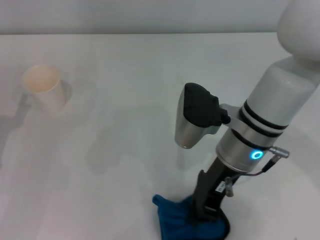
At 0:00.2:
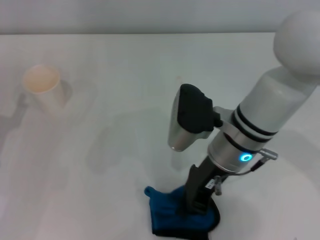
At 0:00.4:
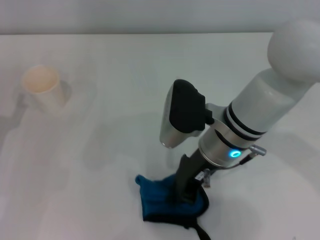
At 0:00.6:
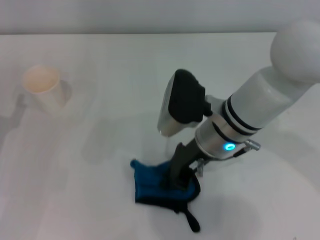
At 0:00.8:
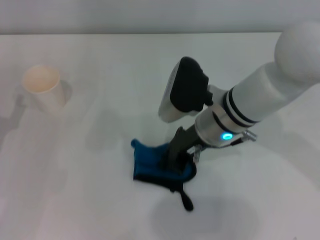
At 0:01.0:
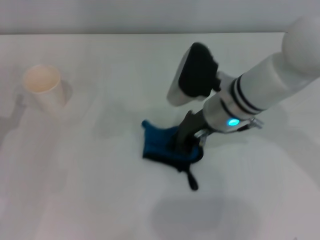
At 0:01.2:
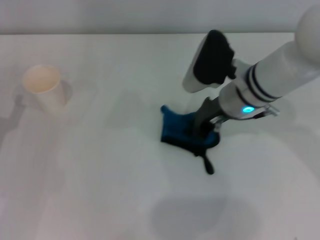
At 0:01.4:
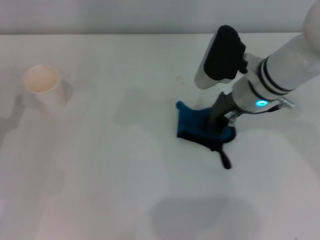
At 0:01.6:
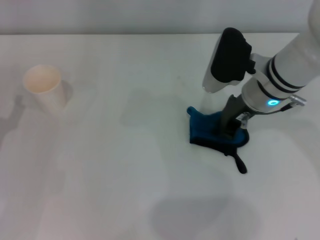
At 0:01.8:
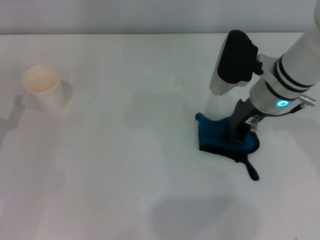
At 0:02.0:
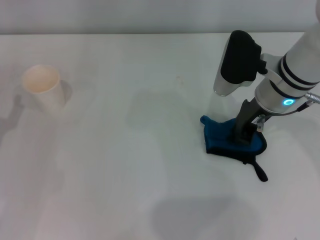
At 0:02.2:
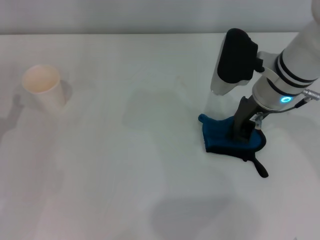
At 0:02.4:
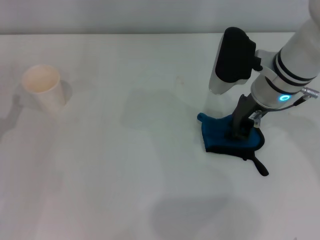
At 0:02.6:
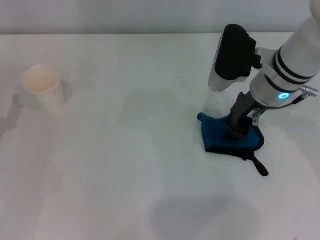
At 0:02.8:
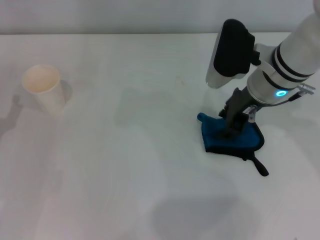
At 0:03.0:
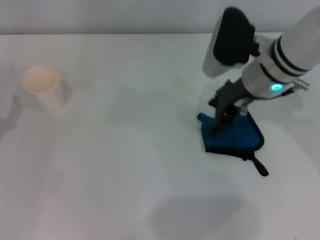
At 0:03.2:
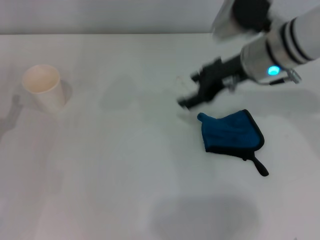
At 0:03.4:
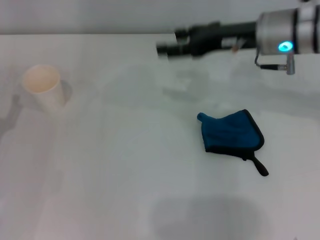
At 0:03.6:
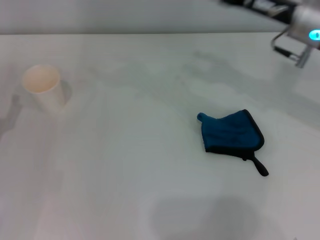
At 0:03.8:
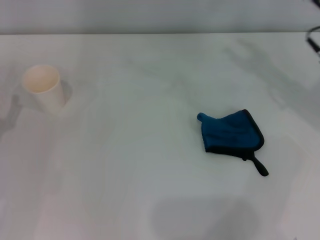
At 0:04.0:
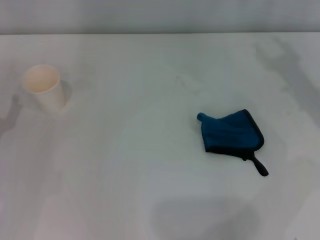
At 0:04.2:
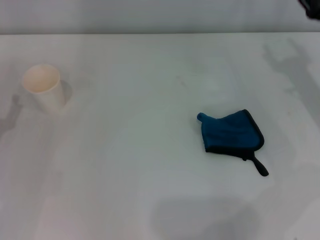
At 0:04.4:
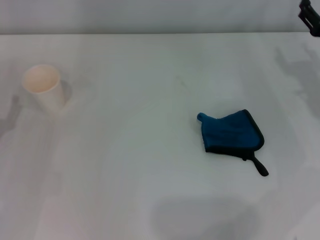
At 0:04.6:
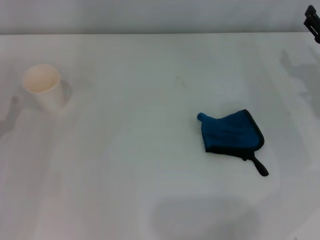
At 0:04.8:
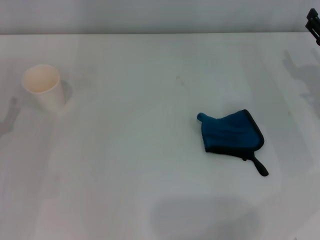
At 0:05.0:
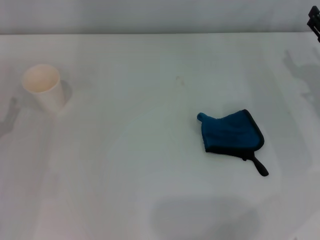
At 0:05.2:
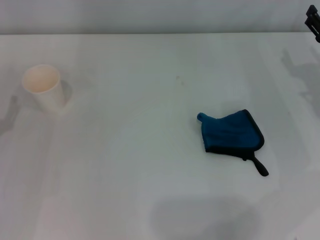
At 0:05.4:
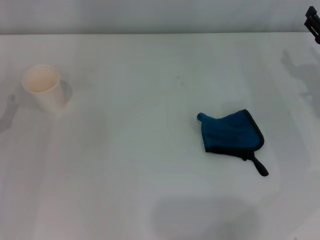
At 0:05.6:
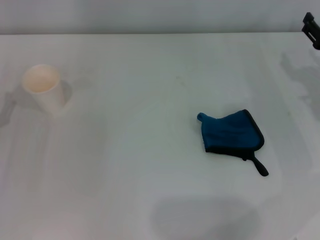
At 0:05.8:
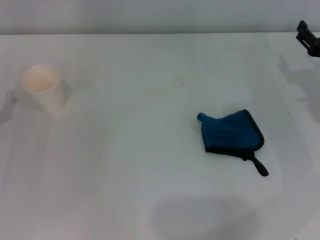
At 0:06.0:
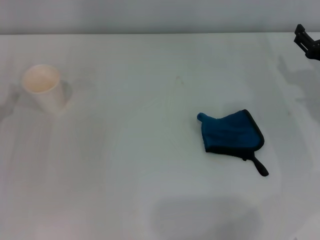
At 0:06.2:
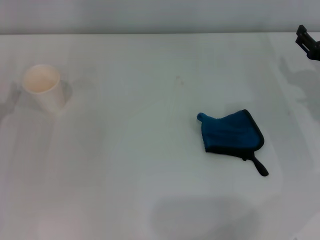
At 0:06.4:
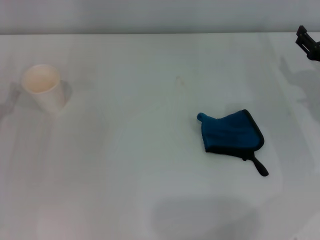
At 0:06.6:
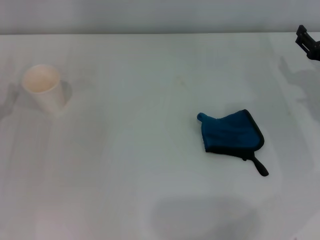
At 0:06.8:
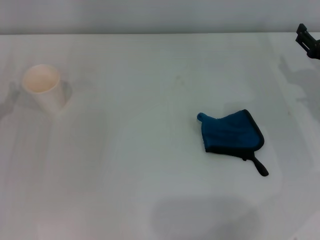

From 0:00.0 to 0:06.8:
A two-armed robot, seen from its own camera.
Step, from 0:02.2 to 0:02.6: Place the rag on the table with the right gripper.
From 0:00.0 to 0:01.4: The right gripper goes about 10 cm forward.
From 0:01.4 to 0:02.8: The grippers make only small movements.
From 0:02.8 to 0:04.0: The right gripper moves to the right, about 15 cm, and opens its fingers.
From 0:05.4 to 0:06.8: There are only small adjustments of the grippers.

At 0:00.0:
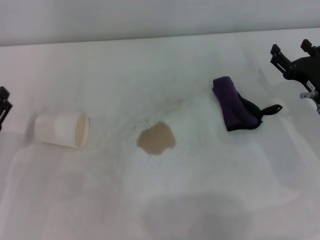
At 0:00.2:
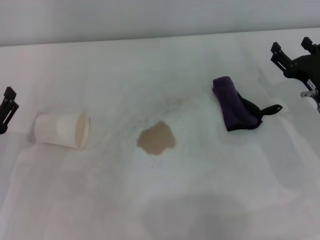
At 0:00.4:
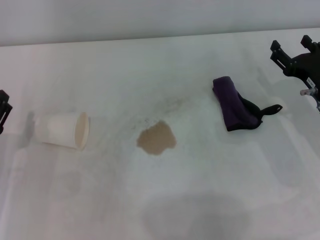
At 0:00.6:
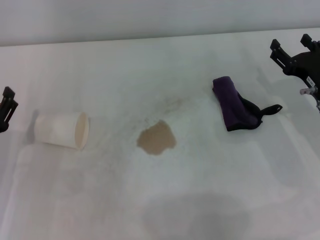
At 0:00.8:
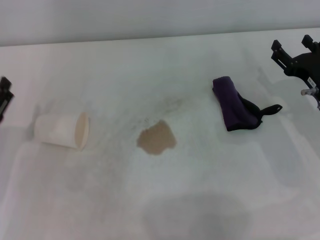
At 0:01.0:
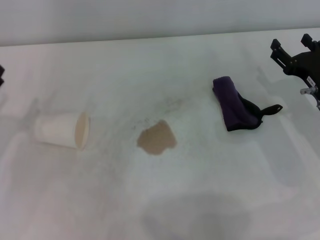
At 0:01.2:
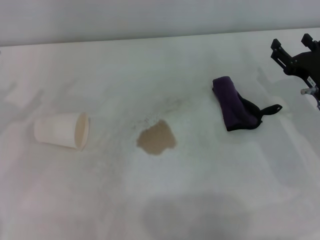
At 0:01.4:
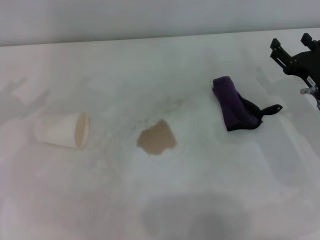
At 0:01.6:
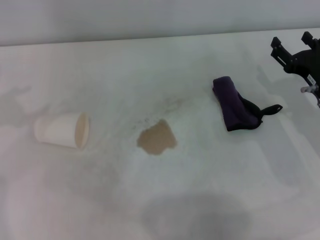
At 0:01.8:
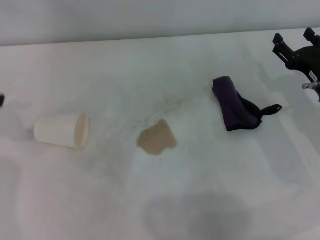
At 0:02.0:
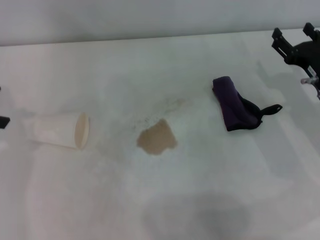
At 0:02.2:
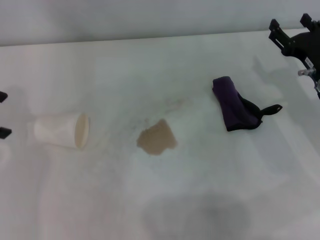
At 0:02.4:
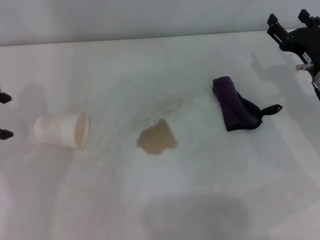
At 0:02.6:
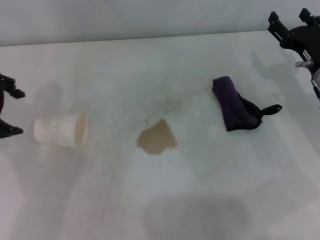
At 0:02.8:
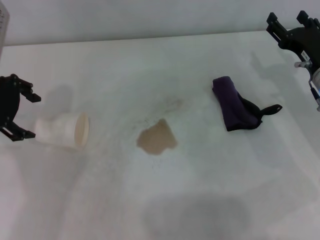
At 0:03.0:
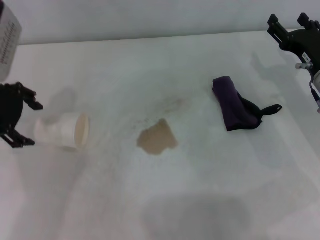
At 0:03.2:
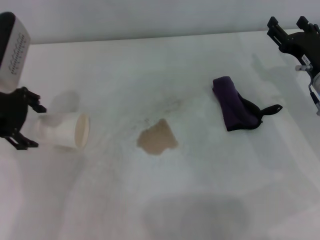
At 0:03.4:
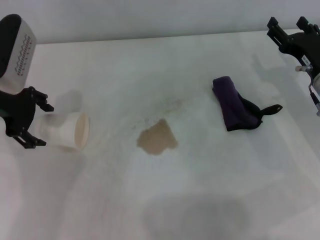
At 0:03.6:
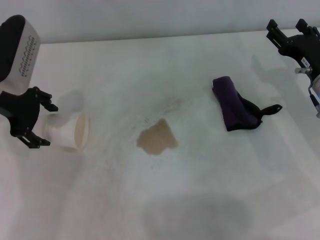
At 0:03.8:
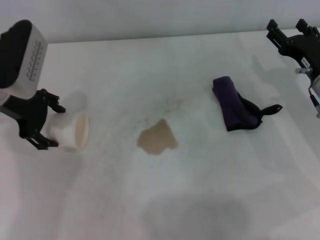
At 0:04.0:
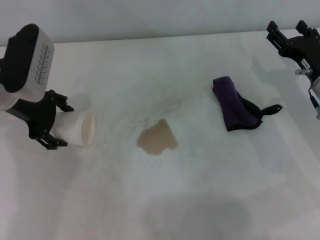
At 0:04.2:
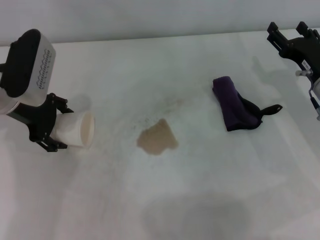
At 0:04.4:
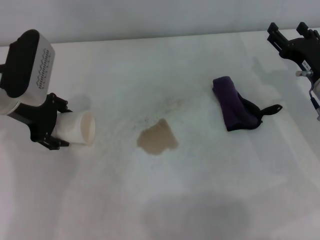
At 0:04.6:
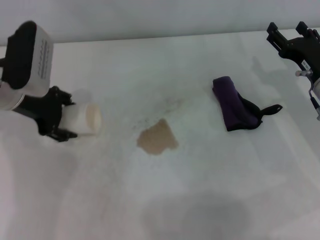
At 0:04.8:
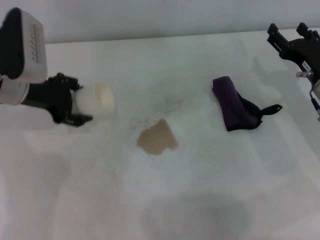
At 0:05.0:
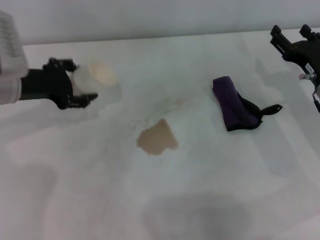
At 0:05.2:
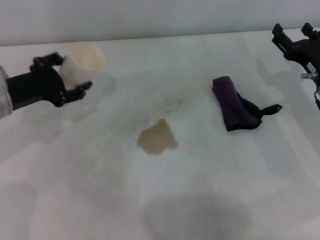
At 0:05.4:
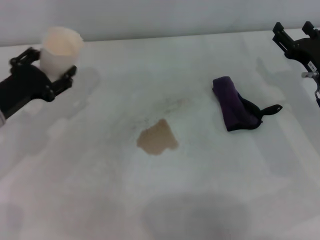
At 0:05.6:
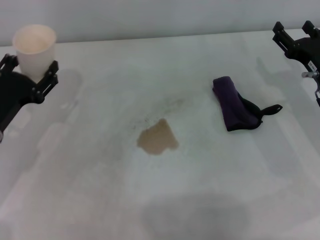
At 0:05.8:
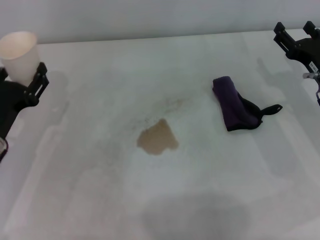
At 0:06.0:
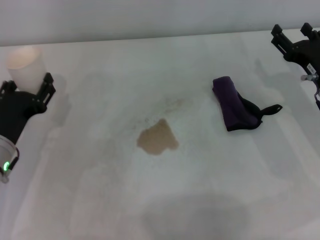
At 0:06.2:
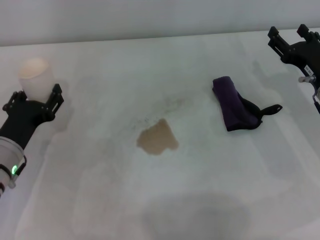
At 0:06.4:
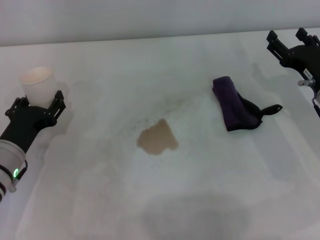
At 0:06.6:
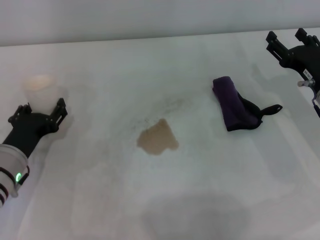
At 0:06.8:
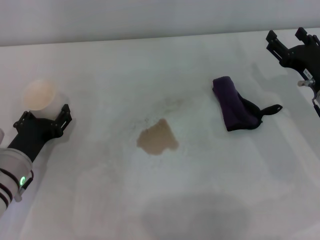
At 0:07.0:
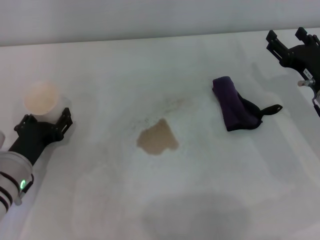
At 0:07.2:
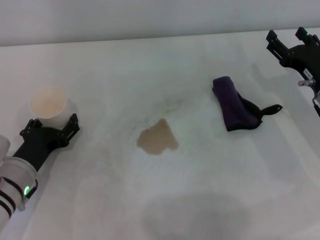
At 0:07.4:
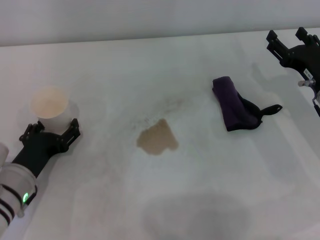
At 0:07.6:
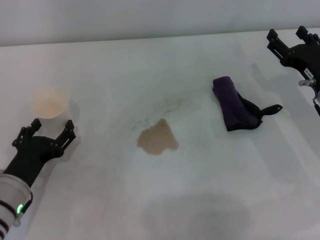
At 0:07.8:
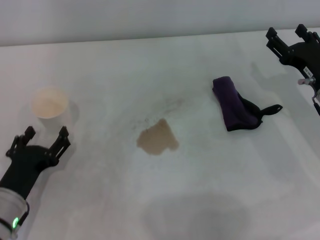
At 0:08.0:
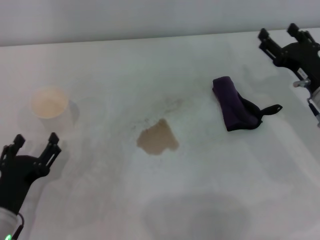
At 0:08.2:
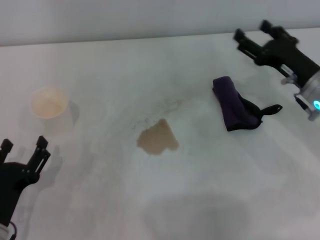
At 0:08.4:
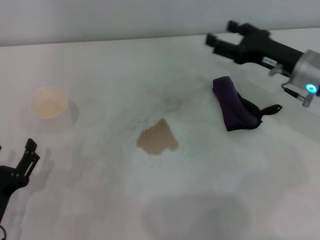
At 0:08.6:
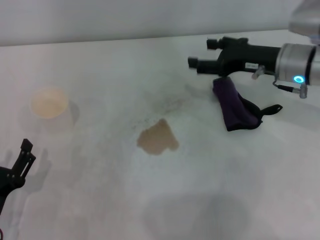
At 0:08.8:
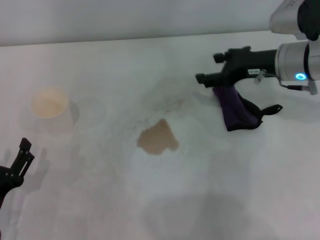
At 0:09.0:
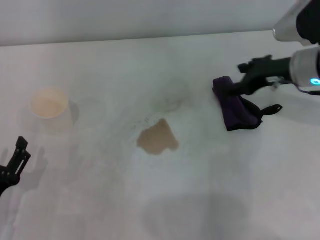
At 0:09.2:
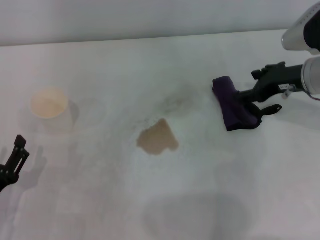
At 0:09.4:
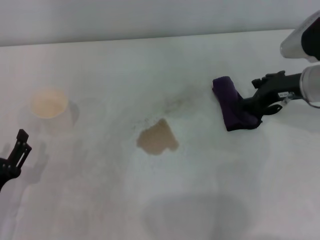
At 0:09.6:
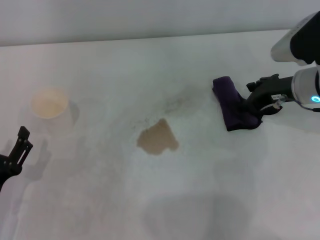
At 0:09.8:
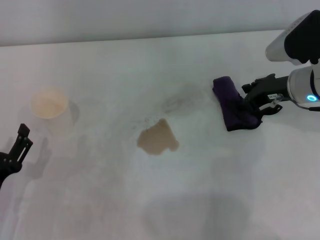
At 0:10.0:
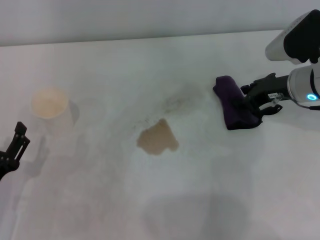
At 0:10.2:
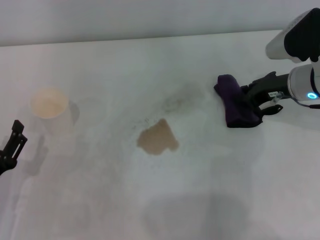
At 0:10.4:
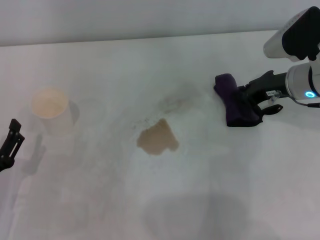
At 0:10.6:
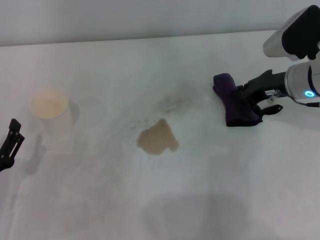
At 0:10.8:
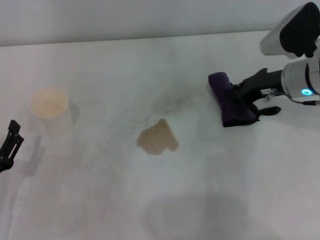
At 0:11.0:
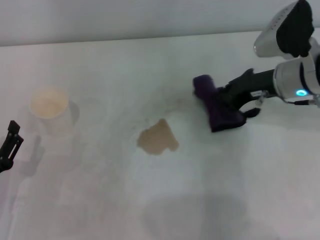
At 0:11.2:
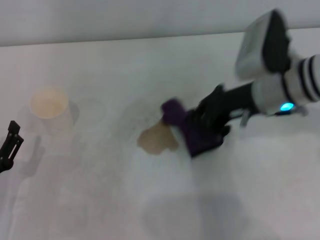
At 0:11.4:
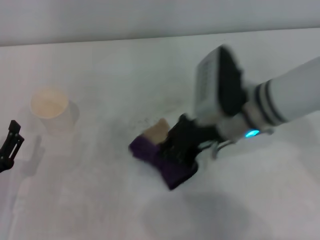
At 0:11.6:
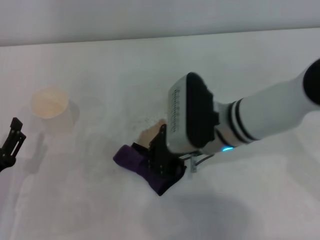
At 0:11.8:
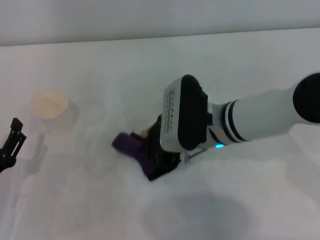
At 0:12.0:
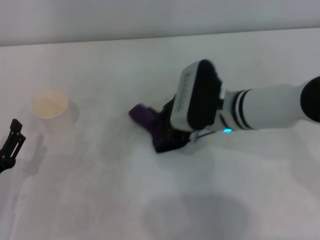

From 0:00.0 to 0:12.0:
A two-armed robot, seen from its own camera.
Step, from 0:00.0 to 0:04.2: Grasp the paper cup with the left gripper.
Step, from 0:04.6 to 0:07.4: Stand the paper cup upright with the left gripper.
Step, from 0:07.8 to 0:10.6: Grasp the rag with the right gripper.
From 0:01.6 to 0:03.0: The left gripper heads to the right and forward, covering some 15 cm.
From 0:03.0 to 0:04.4: The left gripper travels downward by approximately 5 cm, and closes its fingers.
From 0:04.4 to 0:06.0: The left gripper is displaced backward and downward by roughly 15 cm, and closes up.
From 0:06.0 to 0:07.6: The left gripper moves backward, about 5 cm, and opens its fingers.
From 0:07.6 to 0:09.0: The right gripper goes roughly 10 cm upward and forward, while the left gripper moves backward, some 5 cm.
From 0:09.0 to 0:10.4: The right gripper closes.
From 0:10.4 to 0:12.0: The right gripper shifts approximately 15 cm to the left, and closes up.

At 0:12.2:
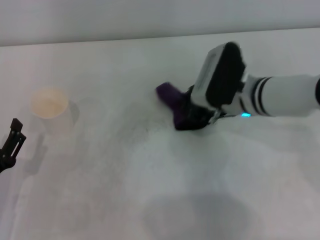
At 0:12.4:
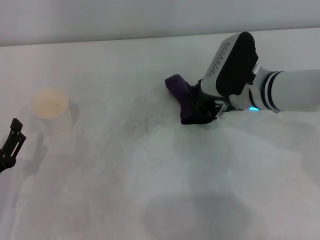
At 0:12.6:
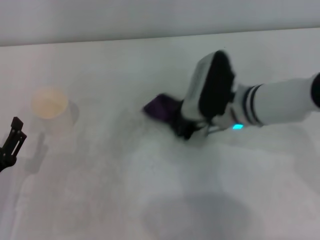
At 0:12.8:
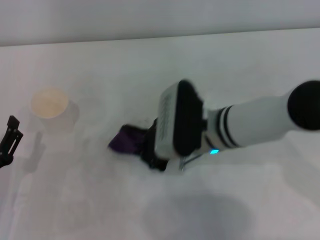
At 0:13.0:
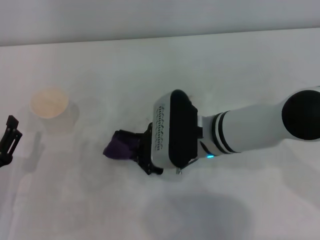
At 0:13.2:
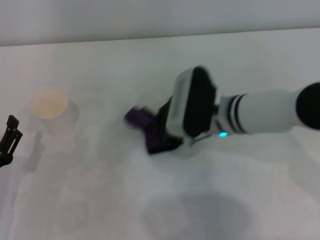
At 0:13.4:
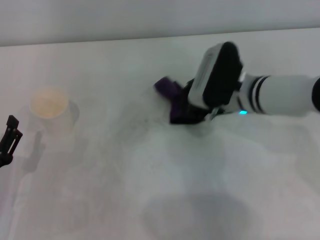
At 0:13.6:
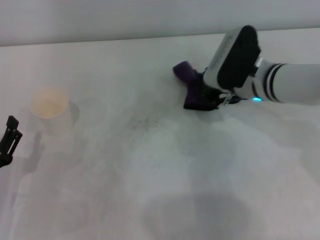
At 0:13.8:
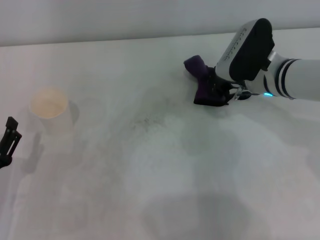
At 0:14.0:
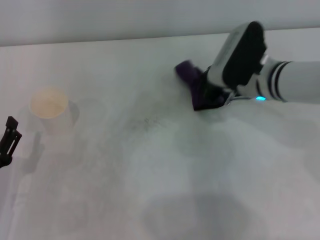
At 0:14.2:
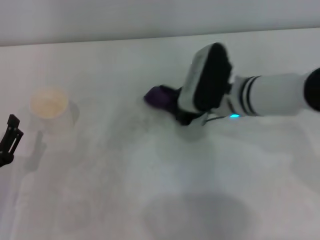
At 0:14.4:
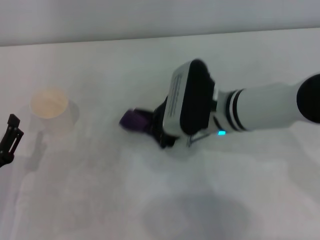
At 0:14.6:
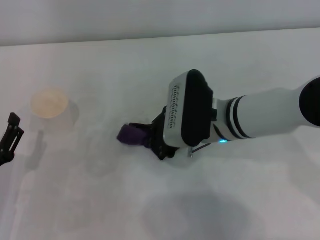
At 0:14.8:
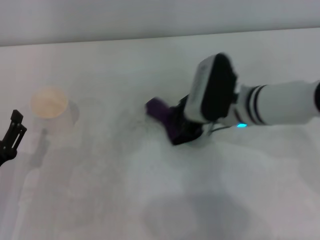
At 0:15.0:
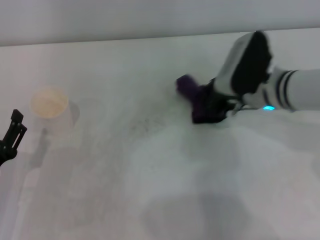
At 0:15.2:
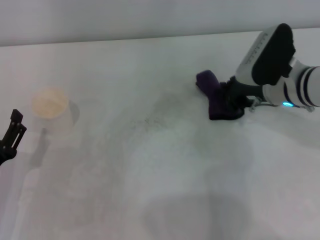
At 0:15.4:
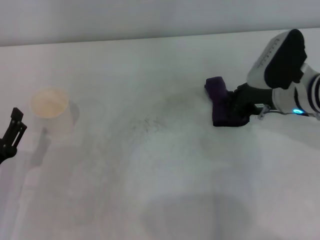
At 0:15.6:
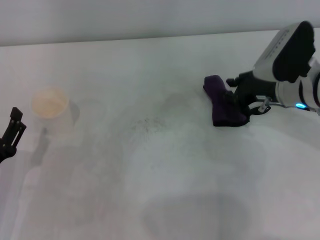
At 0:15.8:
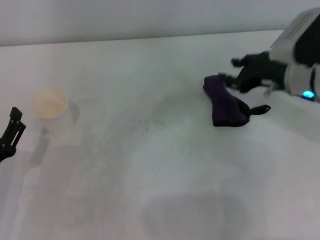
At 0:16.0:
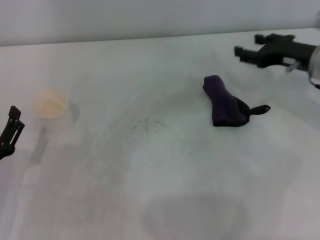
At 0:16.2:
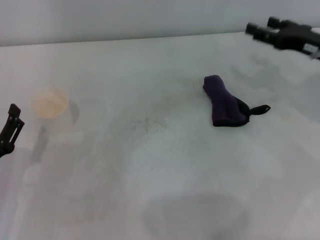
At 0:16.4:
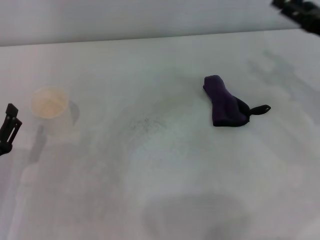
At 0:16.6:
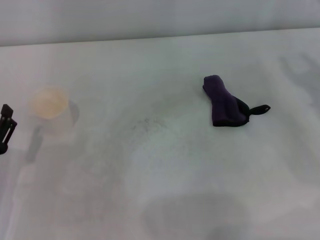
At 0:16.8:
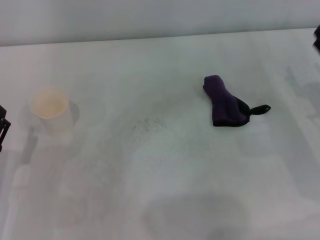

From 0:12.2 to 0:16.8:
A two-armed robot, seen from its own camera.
Step, from 0:12.2 to 0:14.6: Wipe the stains off the table with the right gripper.
Step, from 0:14.8 to 0:15.4: Place the rag on the table with the right gripper.
From 0:13.8 to 0:15.2: The right gripper goes to the left and returns, some 10 cm each way.
From 0:15.2 to 0:16.8: The right gripper moves to the right and backward, roughly 15 cm, and opens.
